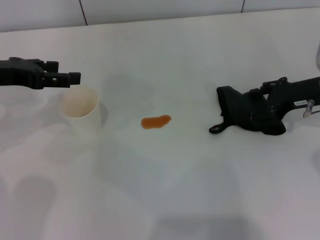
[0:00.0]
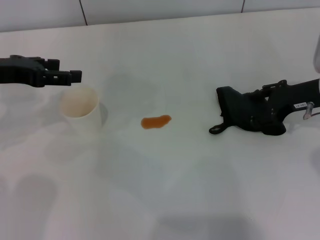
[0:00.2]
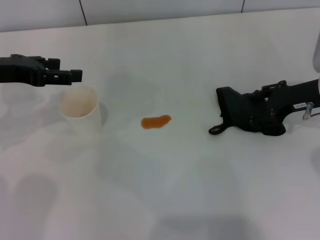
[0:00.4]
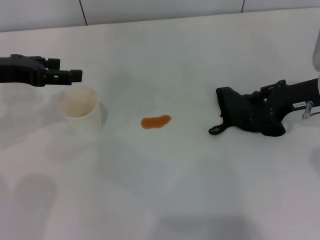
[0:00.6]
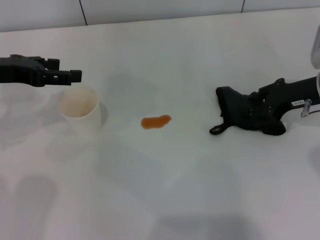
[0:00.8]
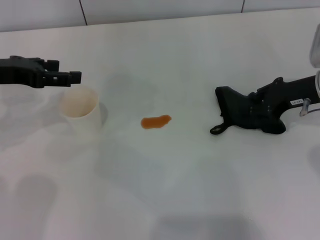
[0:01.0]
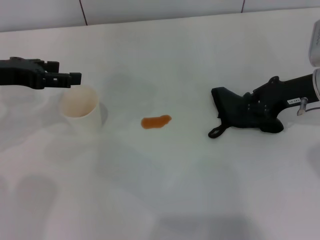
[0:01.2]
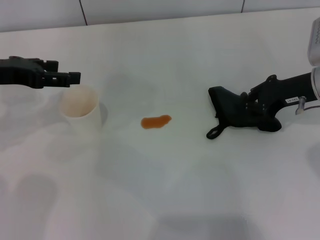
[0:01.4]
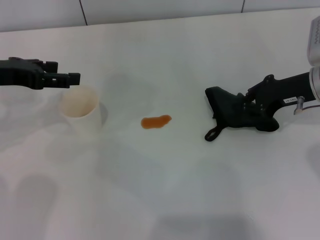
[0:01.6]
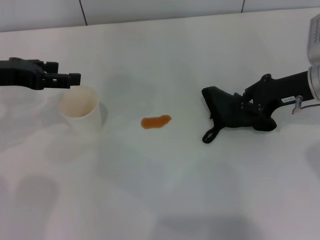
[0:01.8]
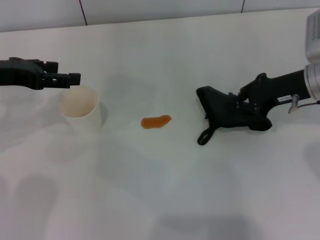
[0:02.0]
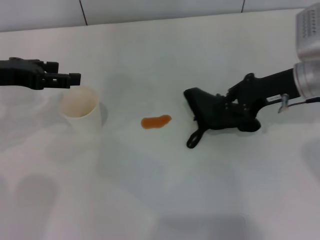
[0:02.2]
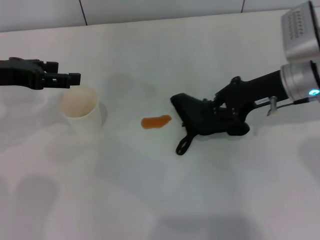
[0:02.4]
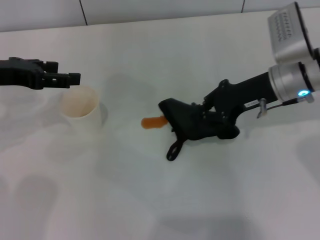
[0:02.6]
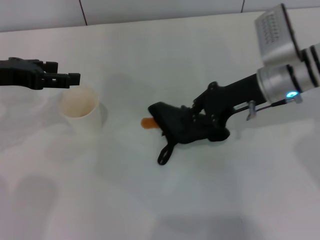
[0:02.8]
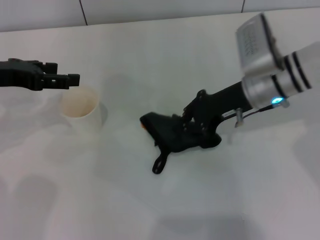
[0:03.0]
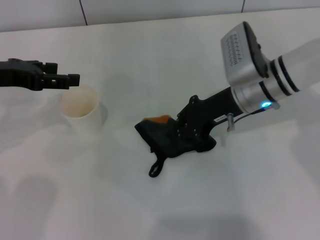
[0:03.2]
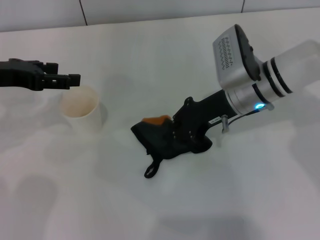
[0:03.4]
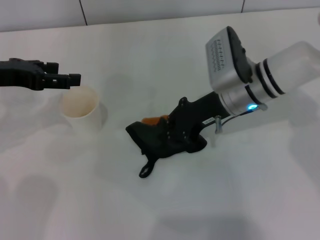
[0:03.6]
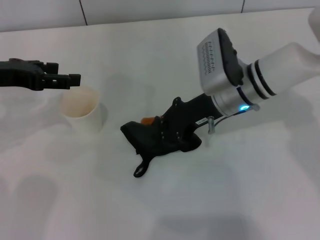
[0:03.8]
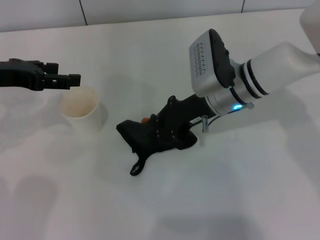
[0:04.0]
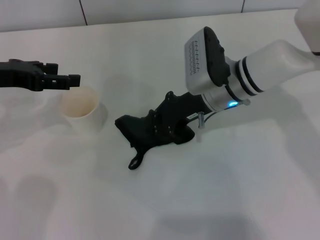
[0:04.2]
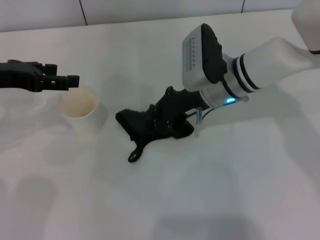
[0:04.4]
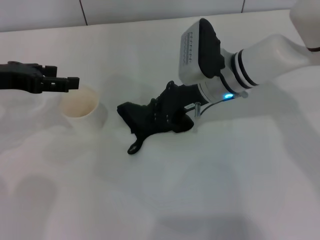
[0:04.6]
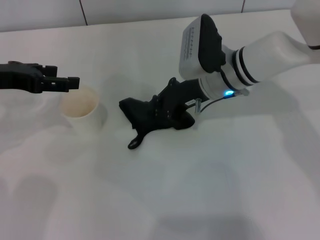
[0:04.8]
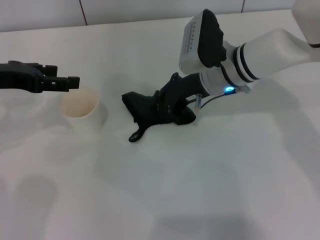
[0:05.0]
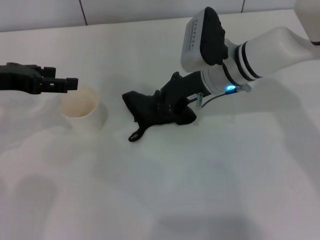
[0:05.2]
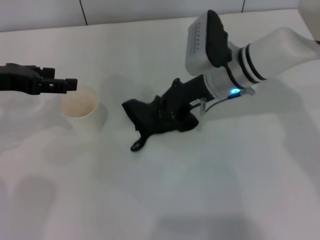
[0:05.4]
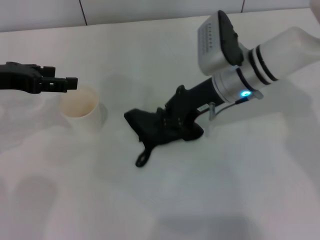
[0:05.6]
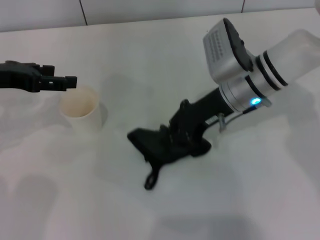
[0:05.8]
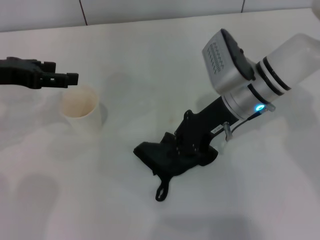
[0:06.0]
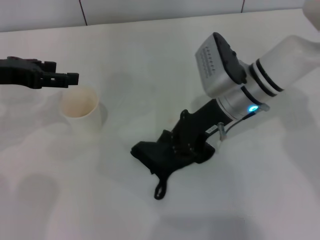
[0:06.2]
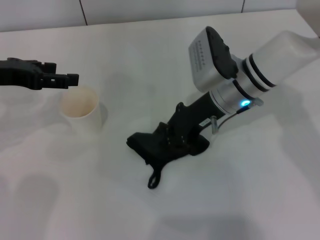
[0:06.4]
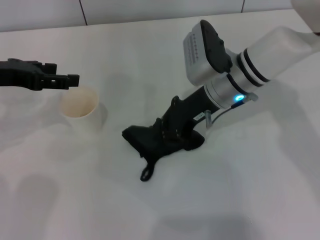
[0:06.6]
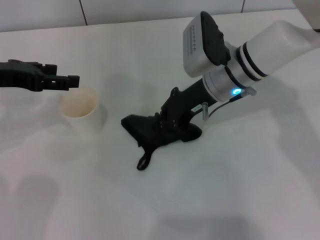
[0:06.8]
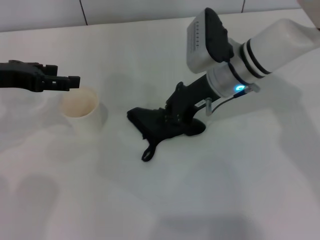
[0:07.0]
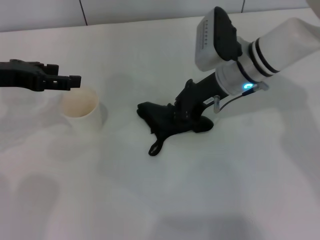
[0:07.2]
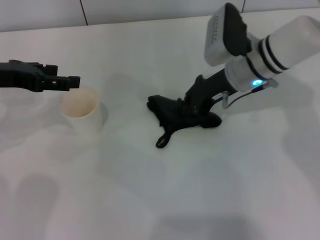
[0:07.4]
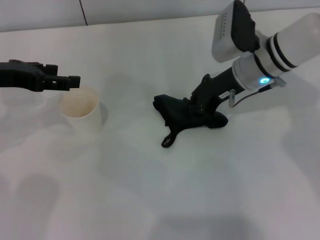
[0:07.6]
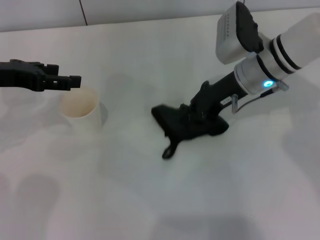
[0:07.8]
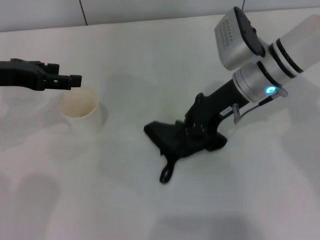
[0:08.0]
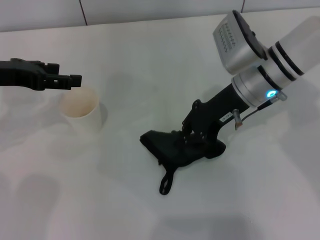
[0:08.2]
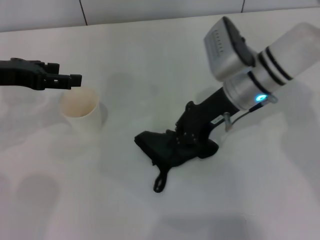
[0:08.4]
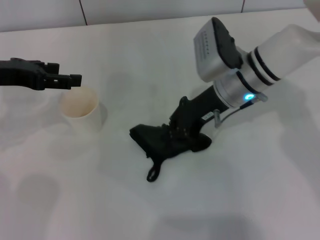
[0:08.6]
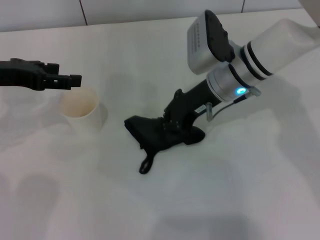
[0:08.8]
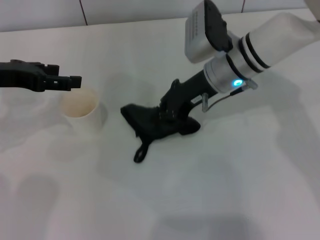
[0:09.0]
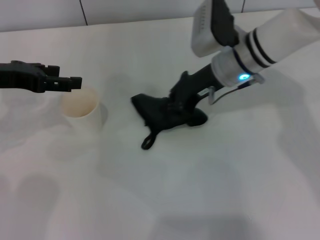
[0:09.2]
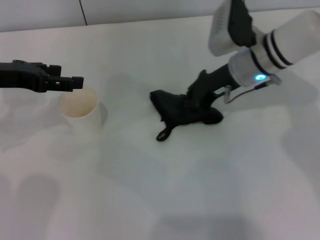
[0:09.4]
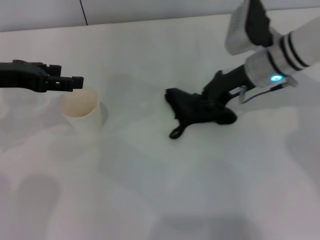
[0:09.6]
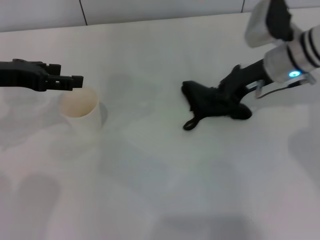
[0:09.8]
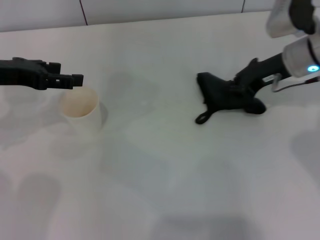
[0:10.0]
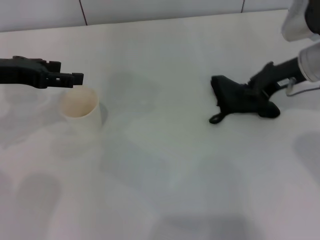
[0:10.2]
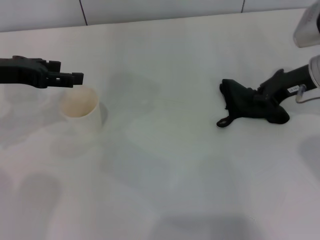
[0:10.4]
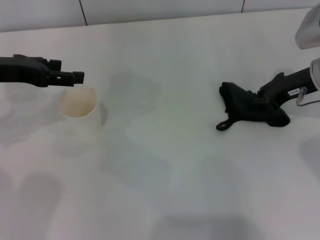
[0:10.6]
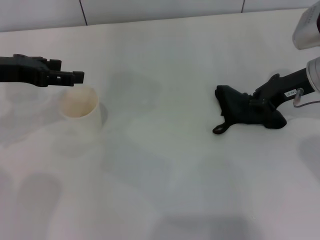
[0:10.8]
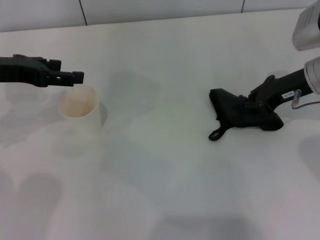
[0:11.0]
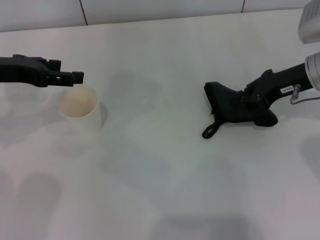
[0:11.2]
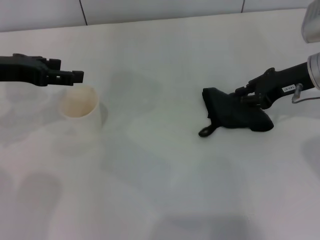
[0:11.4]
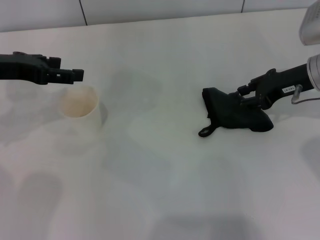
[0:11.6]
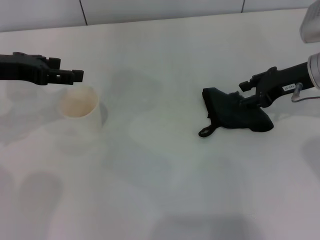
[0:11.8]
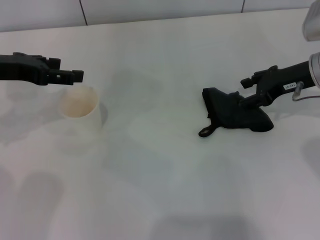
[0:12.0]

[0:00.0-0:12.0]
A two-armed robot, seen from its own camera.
Step, 0:01.2 to 0:09.2: Wipe the stains off the table with the right gripper.
0:00.0 to 0:01.6: The right gripper closes its fingers.
0:01.6 to 0:03.0: The right gripper moves to the left, approximately 10 cm.
0:03.0 to 0:04.4: The right gripper moves to the left, roughly 5 cm.
0:04.4 to 0:09.0: The grippers make only small movements.
0:09.0 to 0:10.4: The right gripper is displaced to the right by about 15 cm.
0:10.4 to 0:12.0: The right gripper opens up.

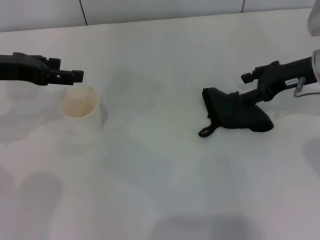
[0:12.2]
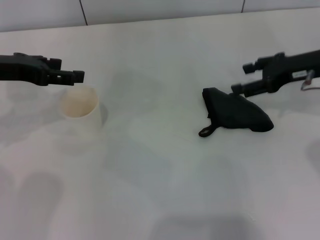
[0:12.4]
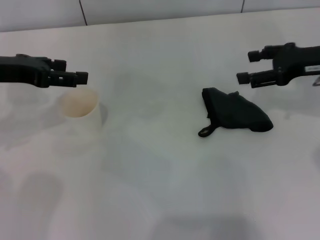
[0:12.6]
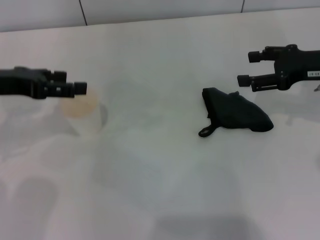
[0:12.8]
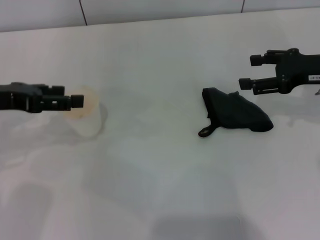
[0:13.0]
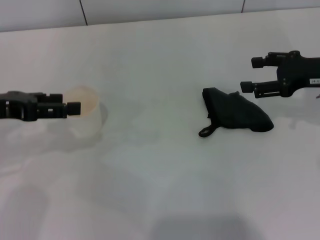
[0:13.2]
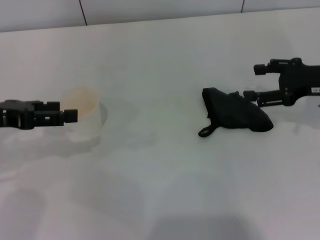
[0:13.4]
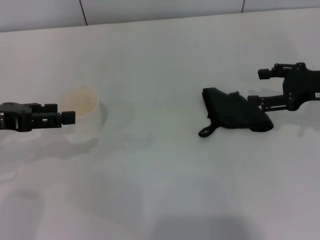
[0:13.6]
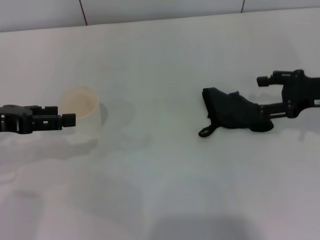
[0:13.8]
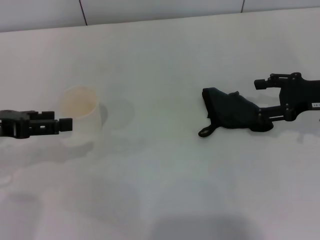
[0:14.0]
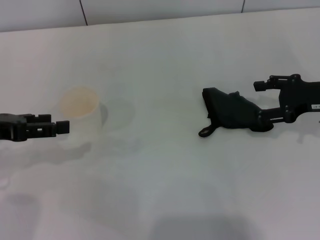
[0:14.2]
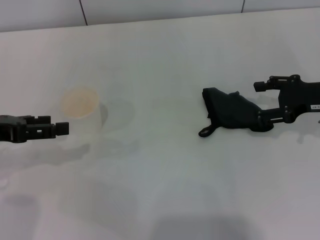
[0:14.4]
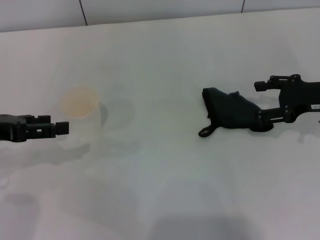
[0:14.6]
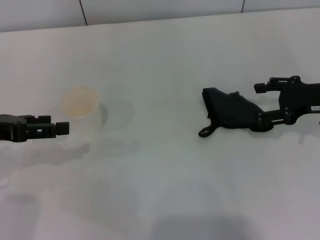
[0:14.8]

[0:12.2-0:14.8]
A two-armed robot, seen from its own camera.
0:12.2 to 0:13.4: The left gripper shifts some 5 cm backward; the right gripper changes place by about 5 cm.
0:13.4 to 0:14.8: The grippers make only small movements.

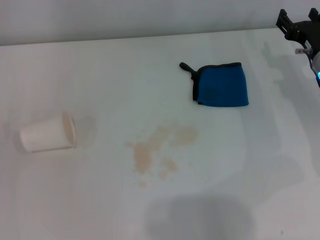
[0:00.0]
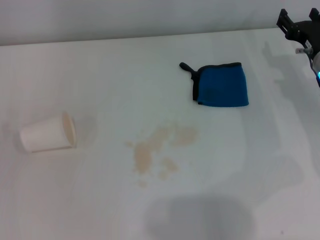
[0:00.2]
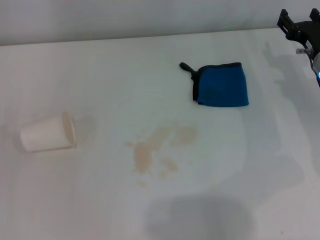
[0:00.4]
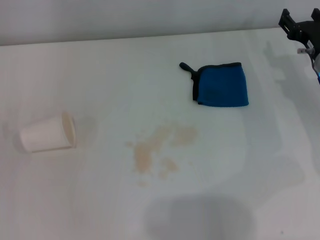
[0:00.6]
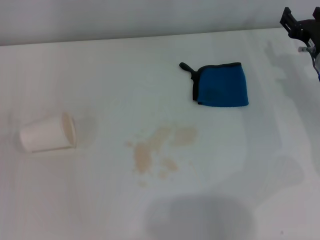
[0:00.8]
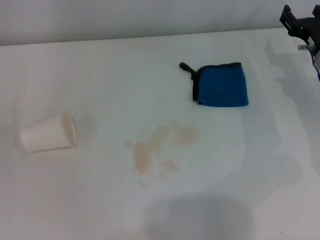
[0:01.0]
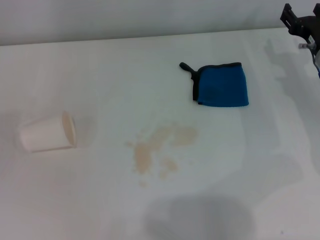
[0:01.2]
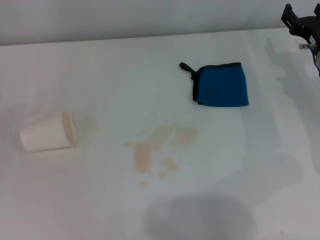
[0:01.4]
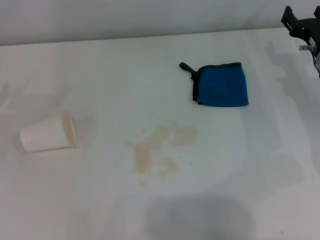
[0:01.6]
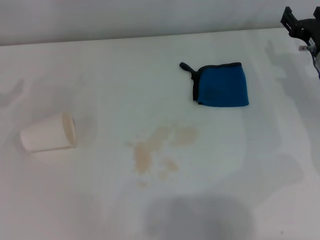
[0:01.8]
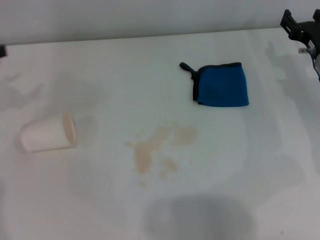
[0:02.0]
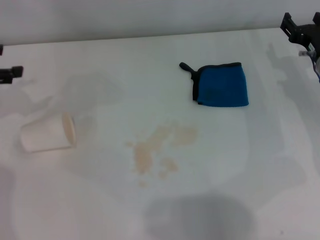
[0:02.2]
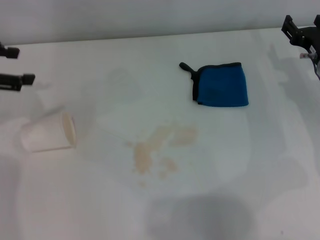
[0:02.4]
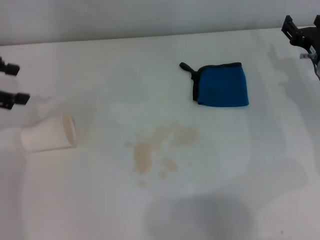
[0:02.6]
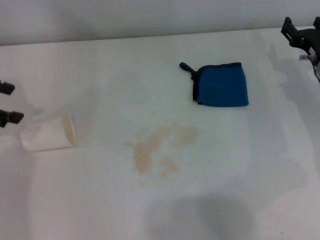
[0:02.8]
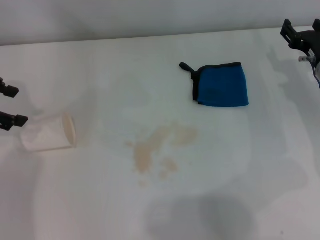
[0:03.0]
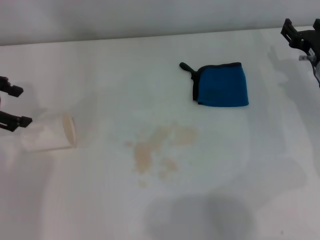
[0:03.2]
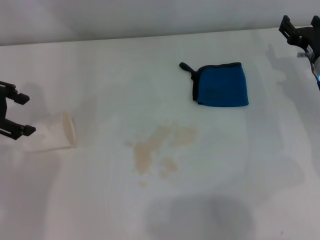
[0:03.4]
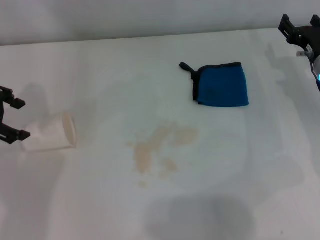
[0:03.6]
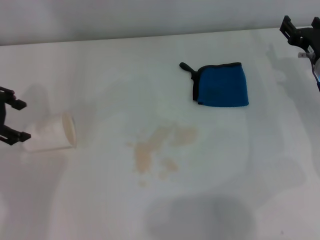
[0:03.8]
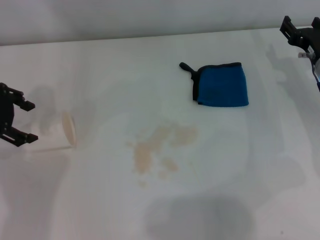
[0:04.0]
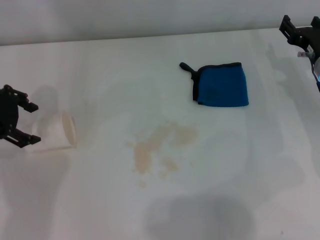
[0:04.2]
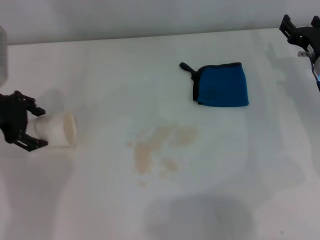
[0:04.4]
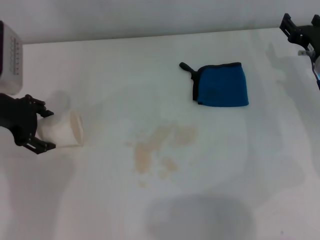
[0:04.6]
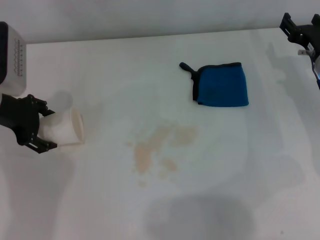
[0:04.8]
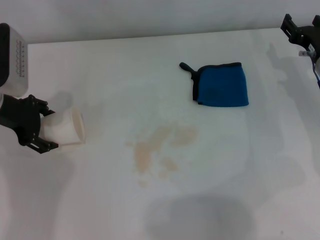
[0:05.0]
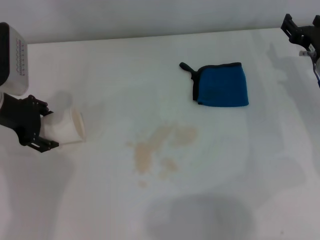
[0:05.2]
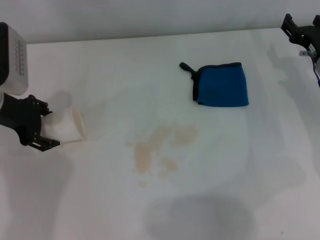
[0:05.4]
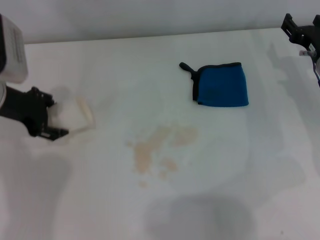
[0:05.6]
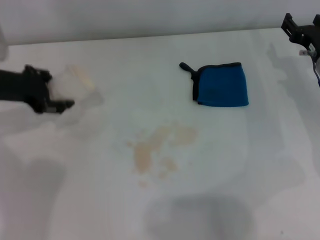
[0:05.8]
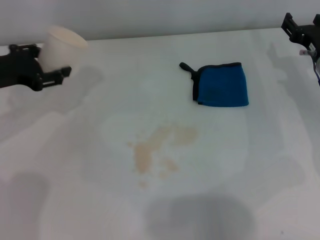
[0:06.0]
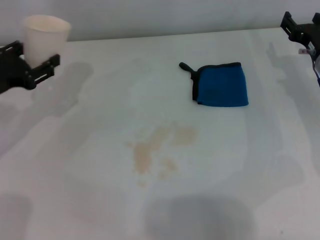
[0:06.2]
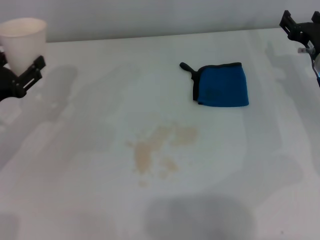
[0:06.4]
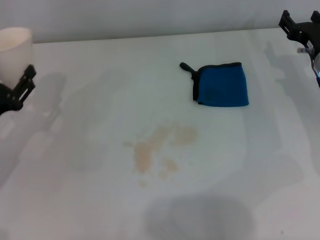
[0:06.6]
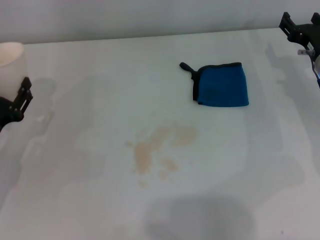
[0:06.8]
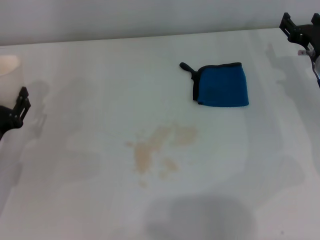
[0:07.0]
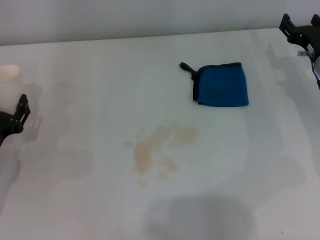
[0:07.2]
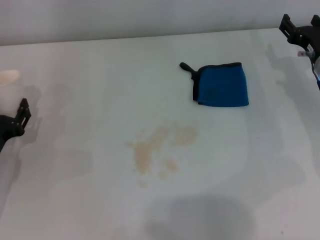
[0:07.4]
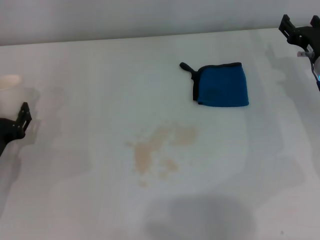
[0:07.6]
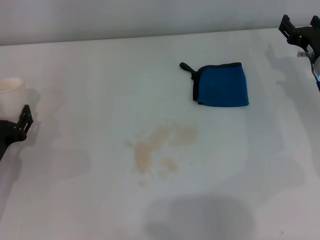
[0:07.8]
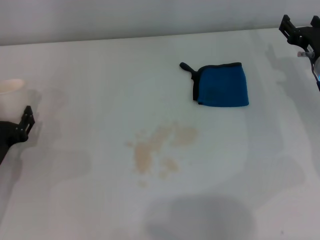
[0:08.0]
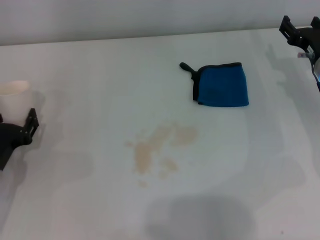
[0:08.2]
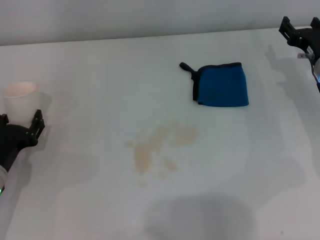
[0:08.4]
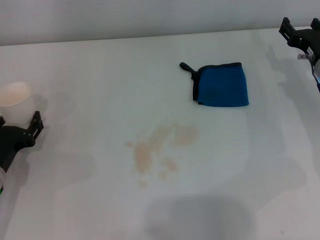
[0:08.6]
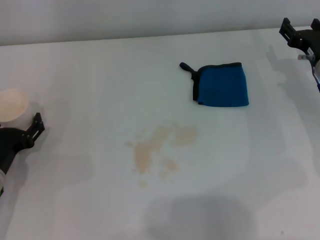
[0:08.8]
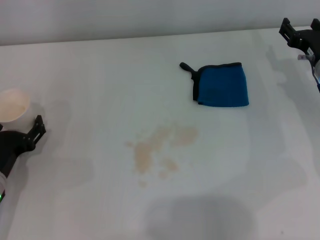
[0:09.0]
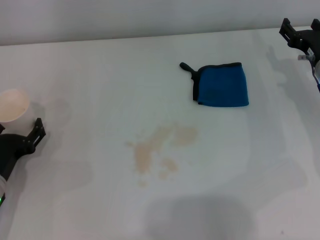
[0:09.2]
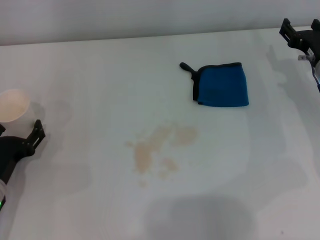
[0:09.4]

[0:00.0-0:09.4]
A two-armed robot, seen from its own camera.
Step, 0:00.0 to 0:05.0: Grasp the paper cup with the left gripper.
Step, 0:05.2 to 0:08.8: Stand the paper cup upright with the left gripper.
0:01.6 to 0:03.2: The left gripper travels upward, to the right and forward by some 15 cm.
0:03.2 to 0:04.8: The left gripper heads to the right and downward, covering about 10 cm.
0:04.8 to 0:06.2: The left gripper shifts by some 5 cm, and closes.
0:06.2 to 0:07.8: The left gripper moves downward and backward, about 15 cm.
0:07.8 to 0:09.4: The left gripper opens.
